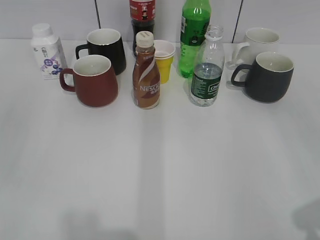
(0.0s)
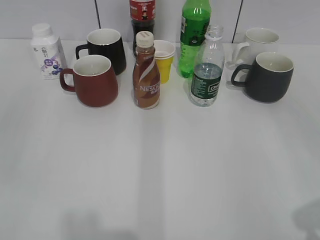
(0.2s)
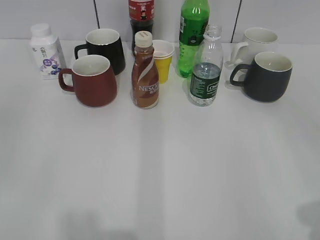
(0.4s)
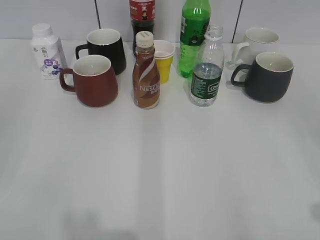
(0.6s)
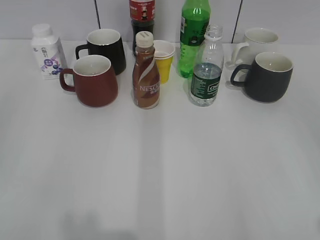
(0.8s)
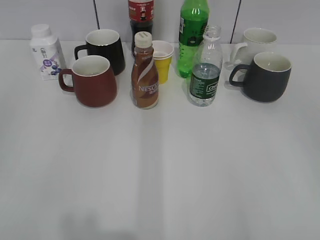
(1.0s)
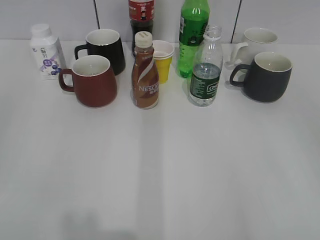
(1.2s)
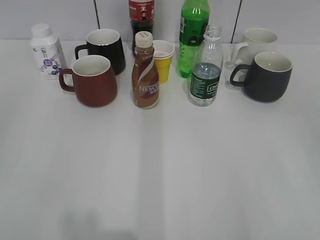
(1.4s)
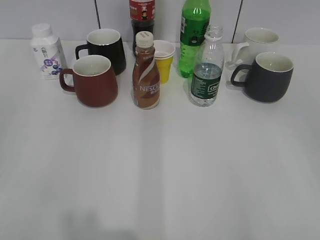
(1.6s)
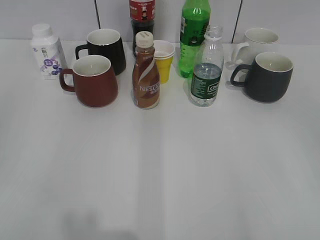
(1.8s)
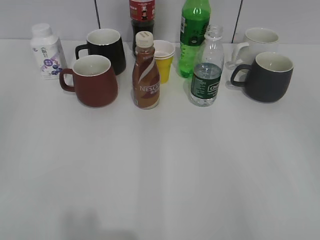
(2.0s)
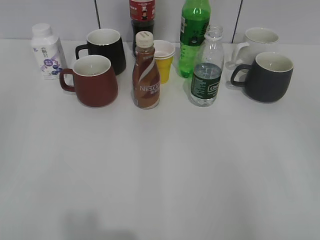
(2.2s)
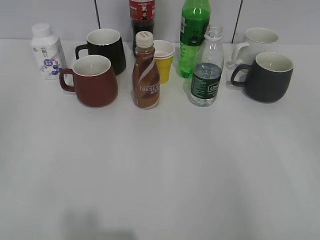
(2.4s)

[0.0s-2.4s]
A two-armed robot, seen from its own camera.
0.0s to 1.2s: The left gripper goes approximately 5 cm backward.
1.2s to 2.4s: Neither gripper changes place.

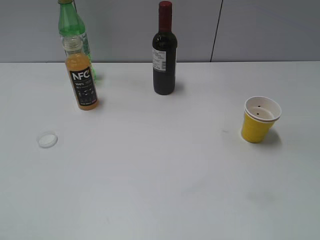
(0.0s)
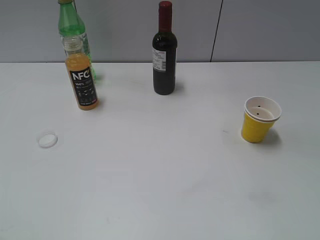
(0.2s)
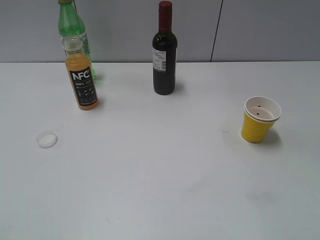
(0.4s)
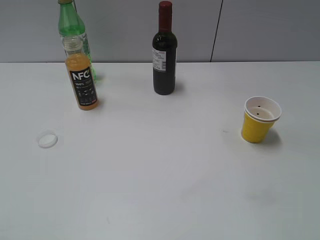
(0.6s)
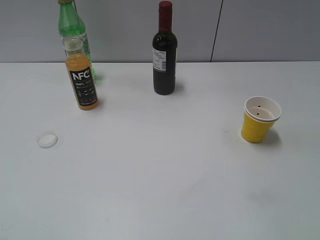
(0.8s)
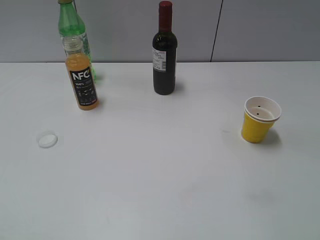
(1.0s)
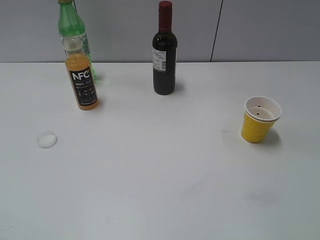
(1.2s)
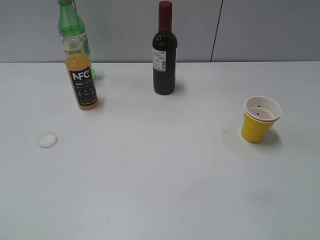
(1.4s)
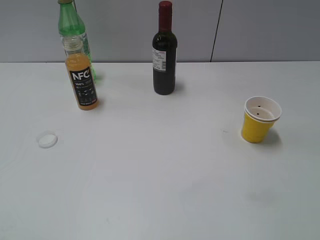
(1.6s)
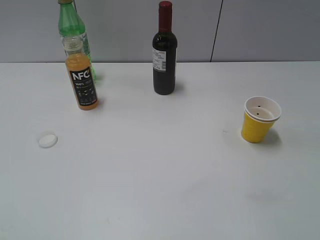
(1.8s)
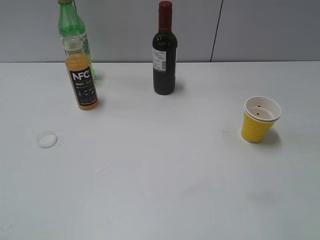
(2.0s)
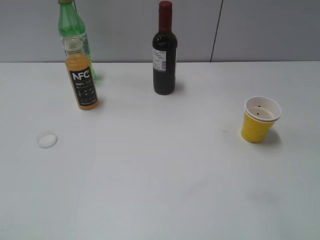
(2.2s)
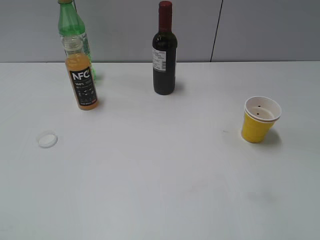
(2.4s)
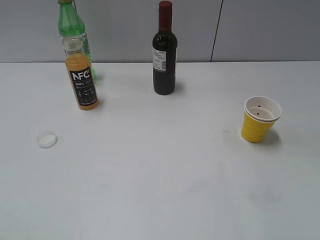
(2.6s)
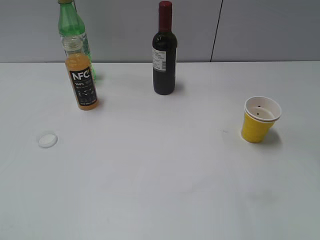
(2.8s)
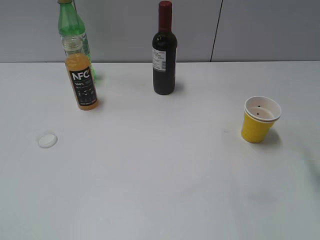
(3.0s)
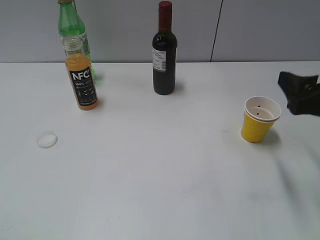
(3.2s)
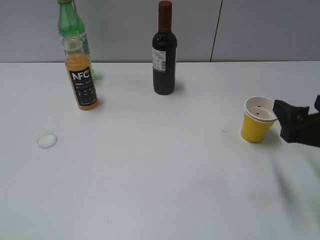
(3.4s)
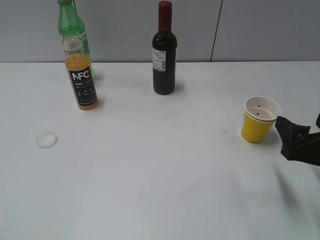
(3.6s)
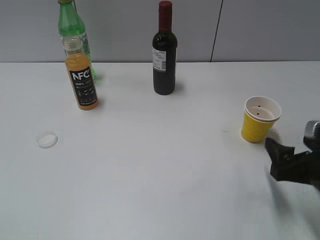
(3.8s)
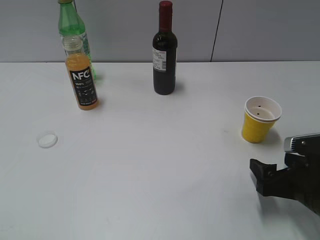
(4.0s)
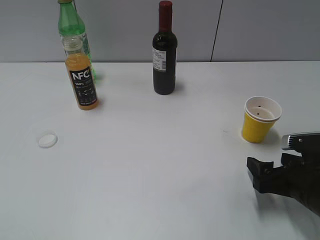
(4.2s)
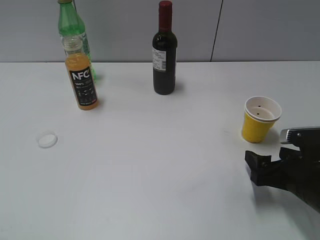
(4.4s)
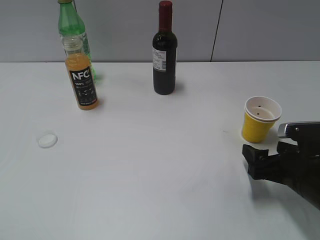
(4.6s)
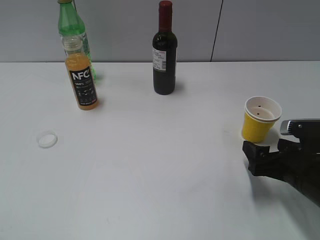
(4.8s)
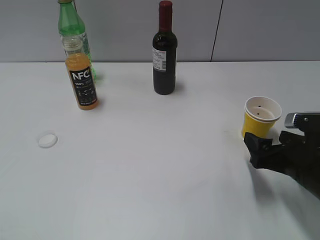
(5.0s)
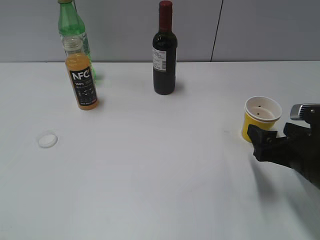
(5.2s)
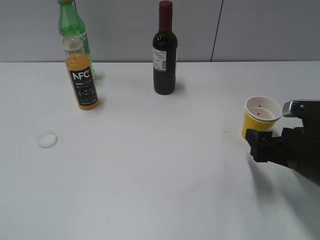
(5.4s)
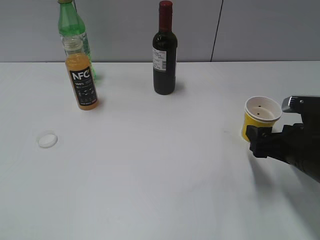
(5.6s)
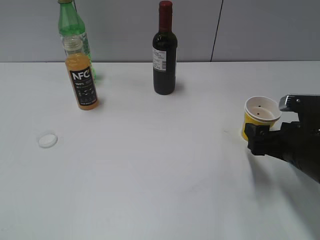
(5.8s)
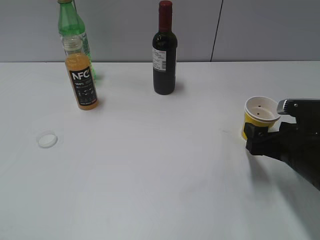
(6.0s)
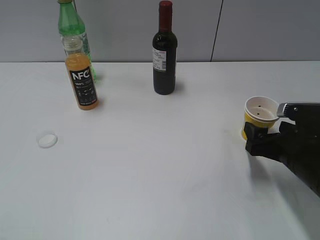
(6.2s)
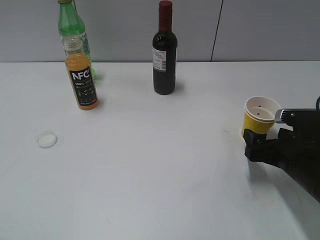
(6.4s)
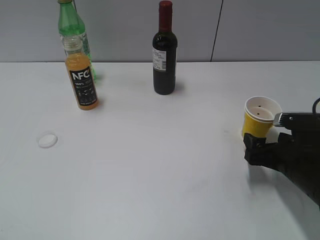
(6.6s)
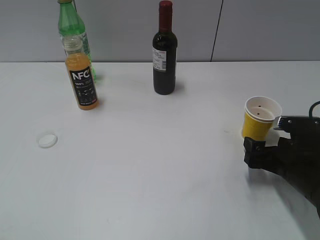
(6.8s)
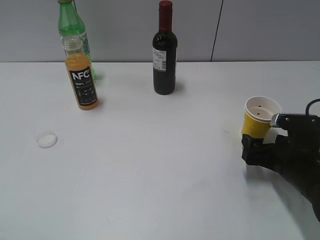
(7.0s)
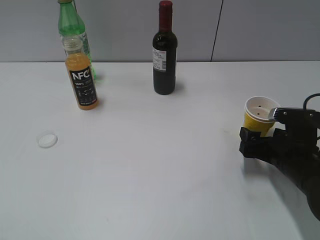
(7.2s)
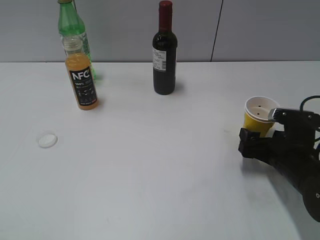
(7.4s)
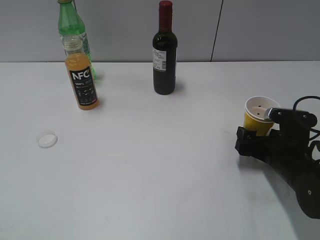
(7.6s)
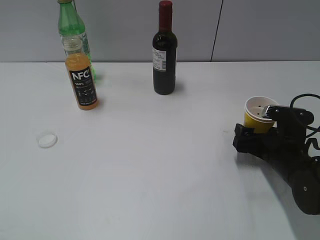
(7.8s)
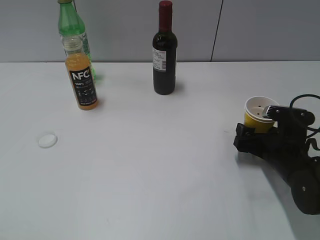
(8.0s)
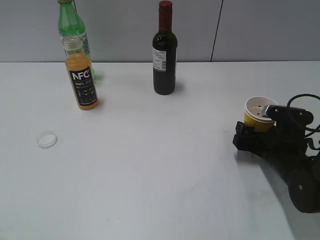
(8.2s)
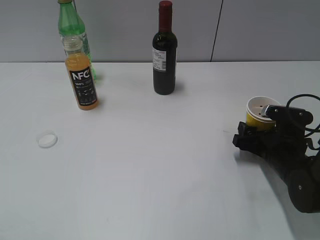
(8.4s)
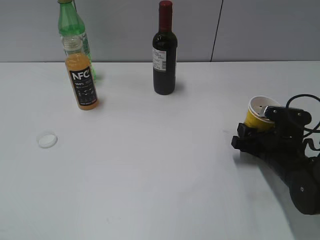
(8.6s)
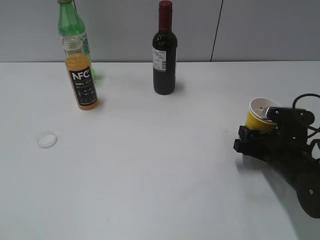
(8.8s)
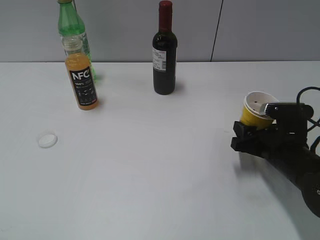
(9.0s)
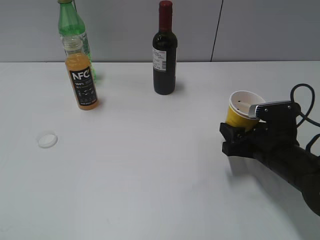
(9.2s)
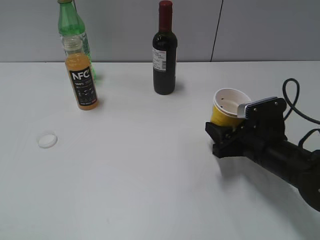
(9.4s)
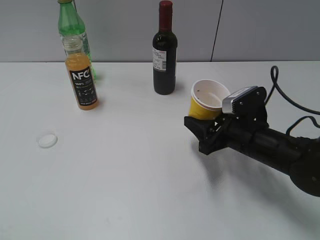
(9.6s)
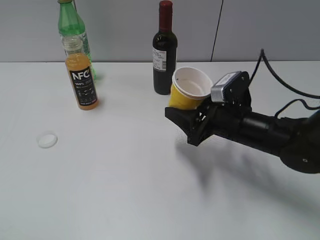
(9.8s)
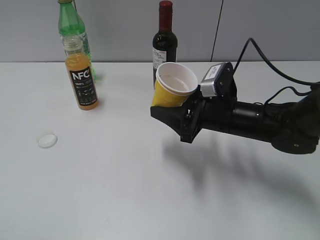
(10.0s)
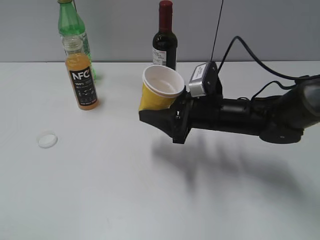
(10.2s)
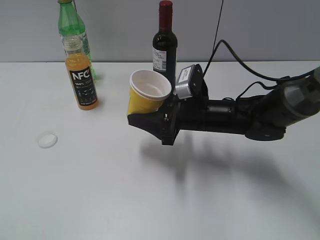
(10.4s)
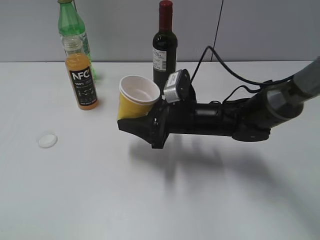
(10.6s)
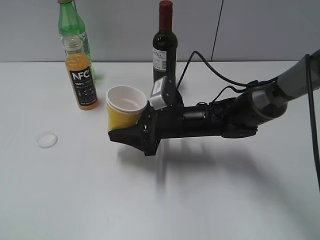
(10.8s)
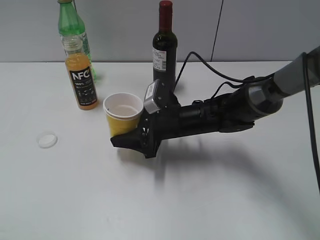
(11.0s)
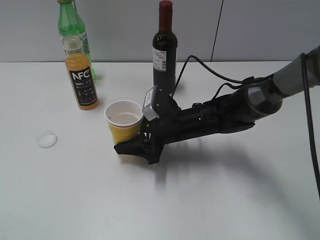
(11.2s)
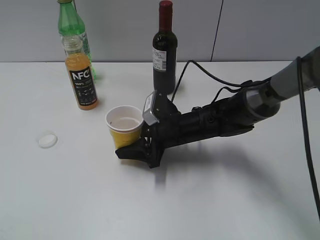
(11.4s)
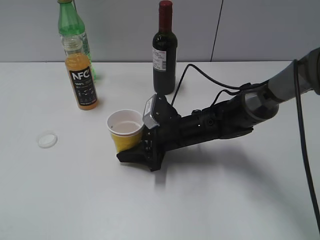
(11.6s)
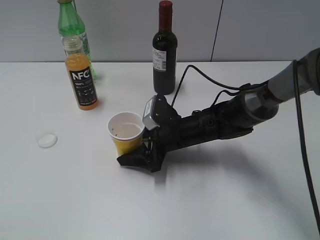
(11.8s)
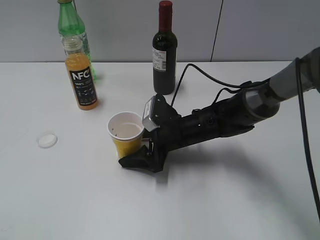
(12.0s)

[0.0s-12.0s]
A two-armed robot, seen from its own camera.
Step, 3.2s to 8.4s: Grasp the yellow paper cup with right gripper.
3.0s to 4.4s: The right gripper is displaced downward by about 20 cm.
4.4s to 6.0s: The grippers move only a little.
6.0s to 7.6s: The right gripper moves about 5 cm.
7.6s to 9.0s: The right gripper closes up.
9.0s to 10.4s: The right gripper goes approximately 15 cm to the left and forward.
10.4s to 12.0s: The right gripper is displaced downward by some 5 cm, and opens.

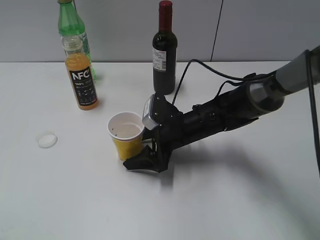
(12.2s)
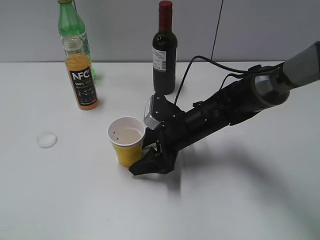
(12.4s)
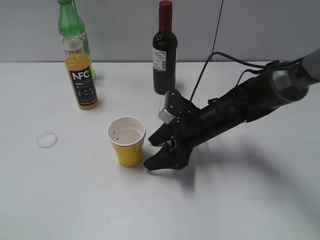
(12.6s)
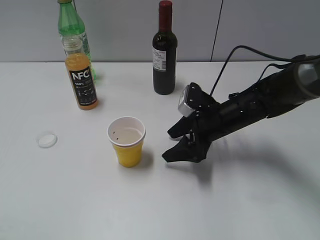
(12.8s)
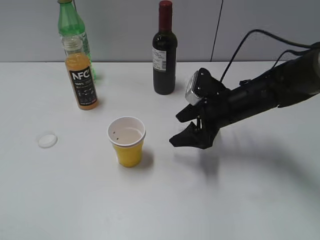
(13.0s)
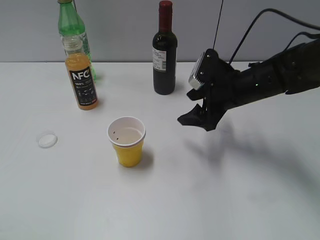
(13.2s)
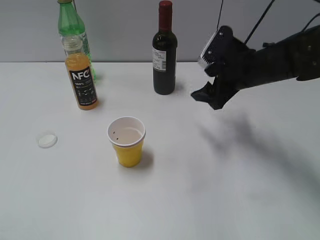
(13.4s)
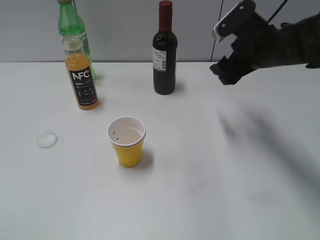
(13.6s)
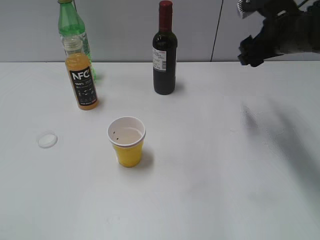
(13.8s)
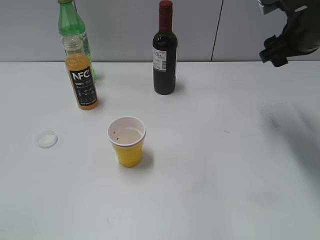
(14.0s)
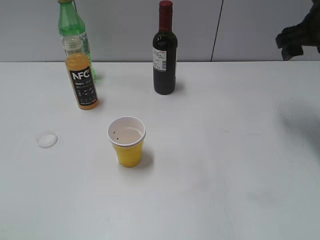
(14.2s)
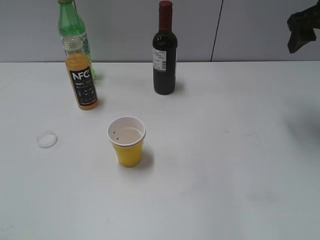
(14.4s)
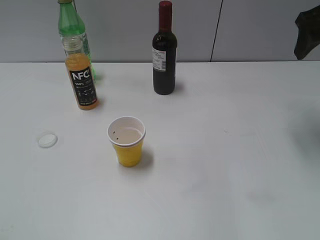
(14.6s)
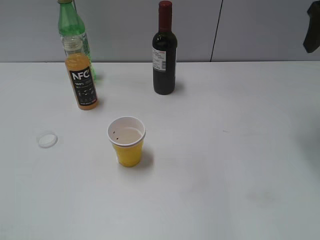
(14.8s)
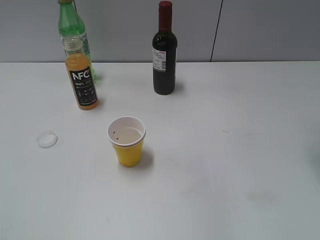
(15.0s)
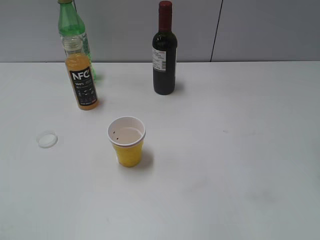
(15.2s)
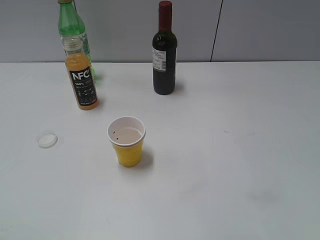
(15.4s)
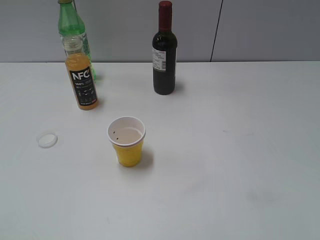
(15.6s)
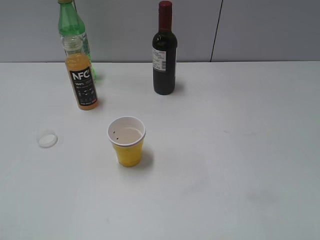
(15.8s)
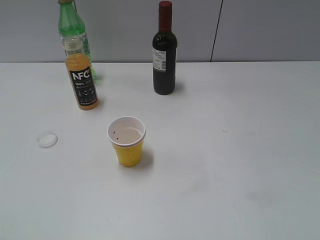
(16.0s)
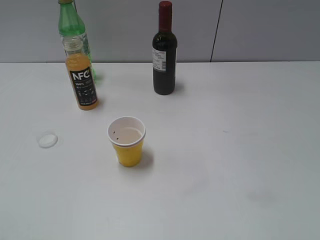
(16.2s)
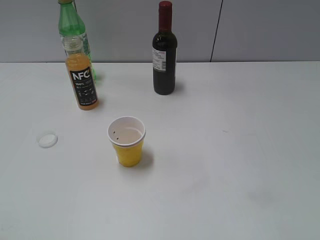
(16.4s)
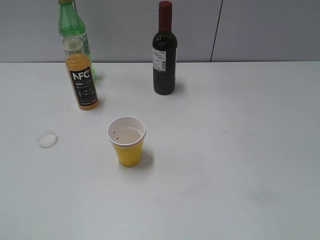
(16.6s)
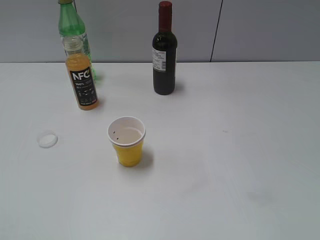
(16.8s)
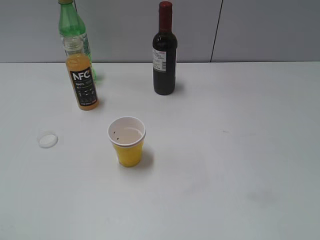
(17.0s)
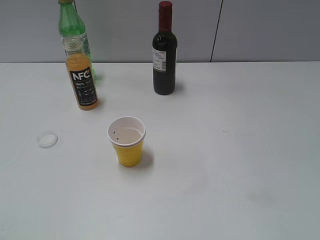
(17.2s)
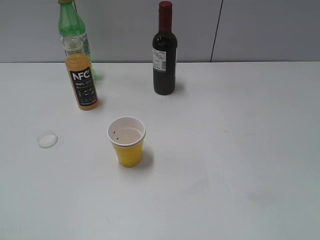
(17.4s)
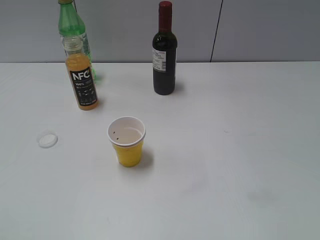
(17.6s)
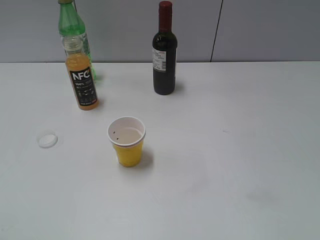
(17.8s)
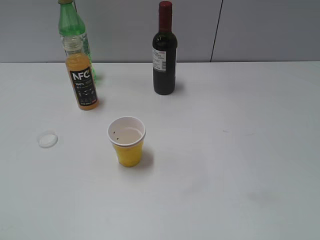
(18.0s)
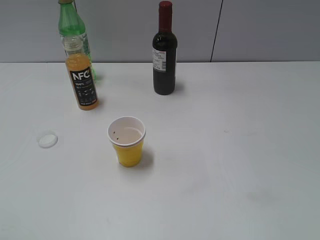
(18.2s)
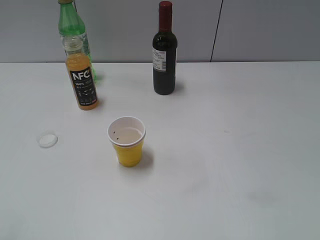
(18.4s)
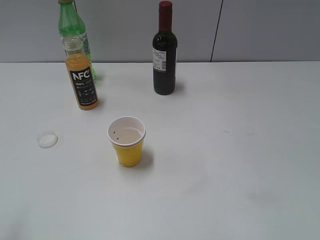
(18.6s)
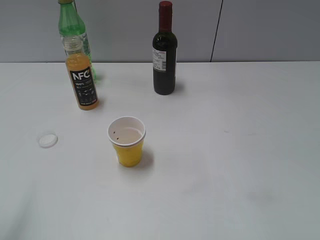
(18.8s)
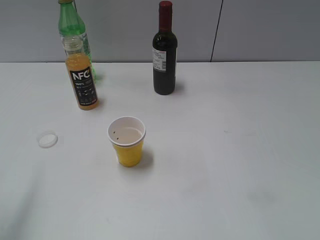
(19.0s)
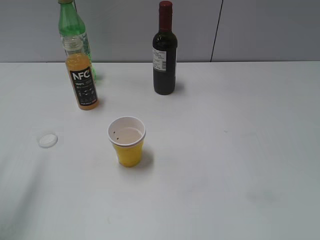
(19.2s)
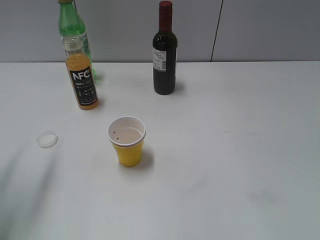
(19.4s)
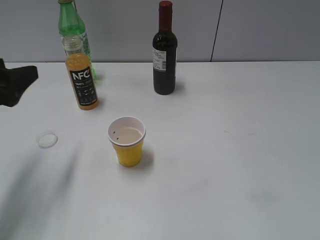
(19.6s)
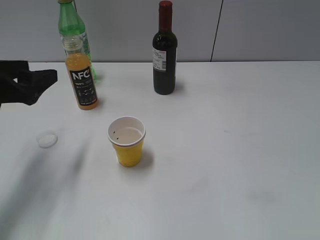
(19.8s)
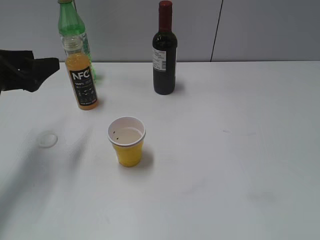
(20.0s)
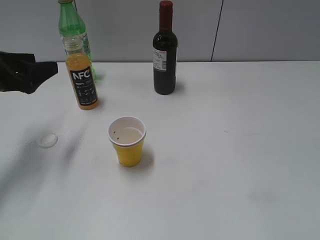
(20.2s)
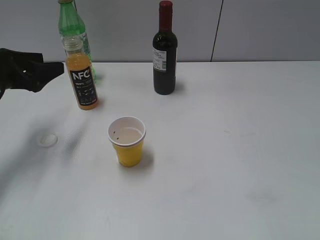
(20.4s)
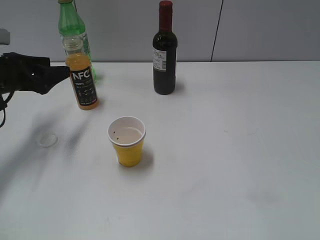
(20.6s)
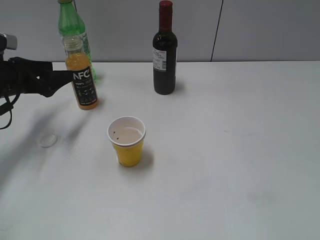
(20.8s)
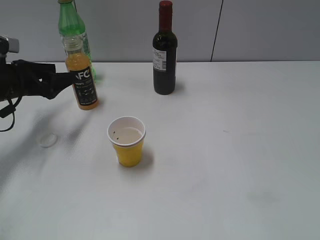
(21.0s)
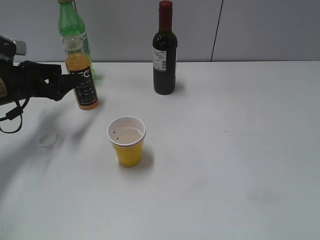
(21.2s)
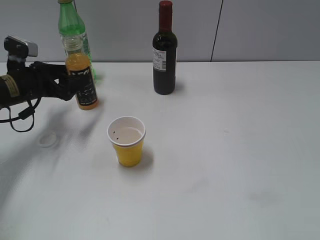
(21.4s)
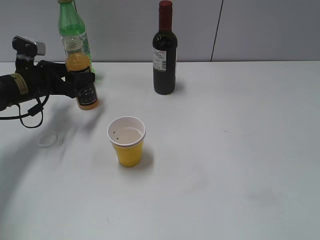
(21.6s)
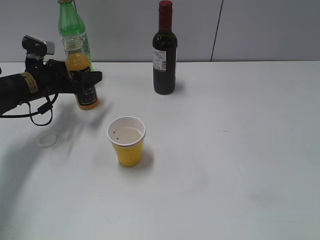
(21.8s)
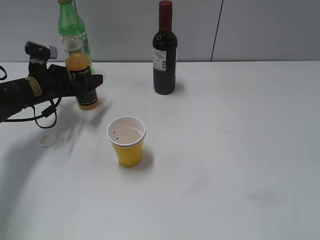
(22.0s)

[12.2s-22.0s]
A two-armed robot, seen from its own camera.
12.2s to 13.6s: The right gripper is displaced upward and to the right by roughly 20 cm.
13.6s to 15.0s: The right gripper travels upward and to the right by roughly 20 cm.
17.8s to 19.2s: The left gripper moves forward, about 20 cm.
19.2s to 20.6s: The left gripper goes roughly 20 cm forward and downward.
20.6s to 22.0s: The left gripper shifts about 10 cm downward and forward.
